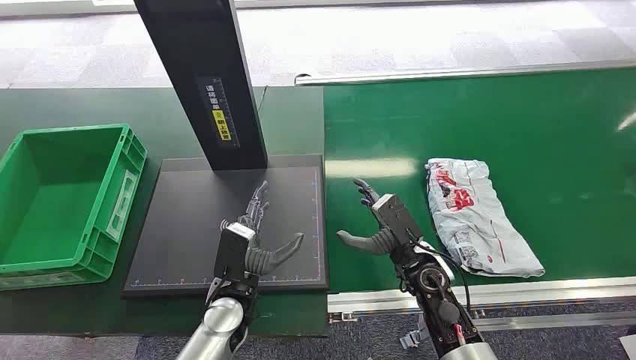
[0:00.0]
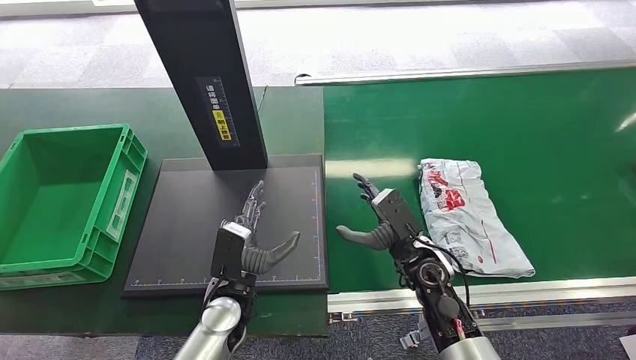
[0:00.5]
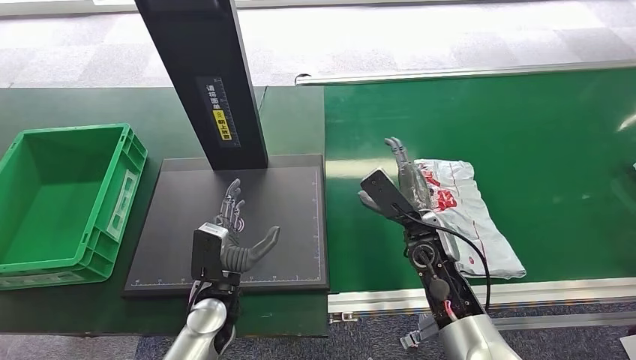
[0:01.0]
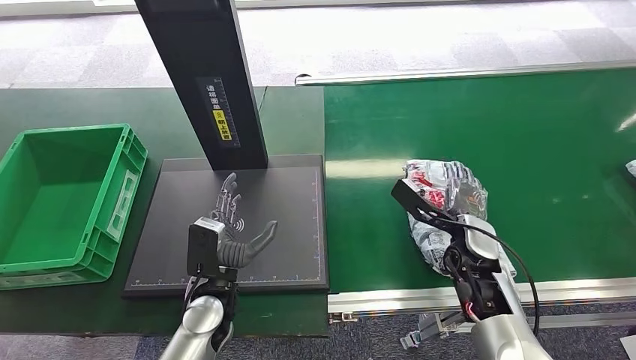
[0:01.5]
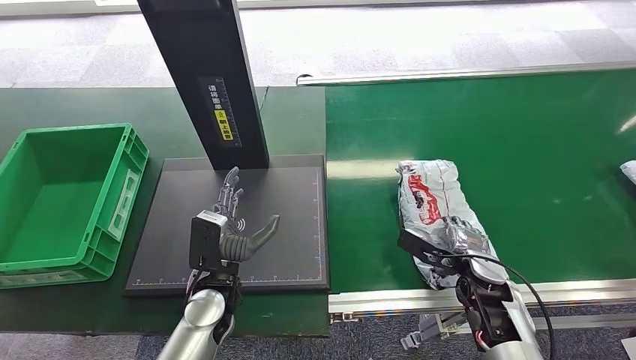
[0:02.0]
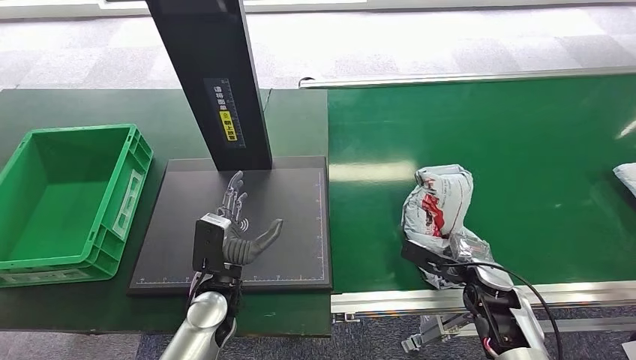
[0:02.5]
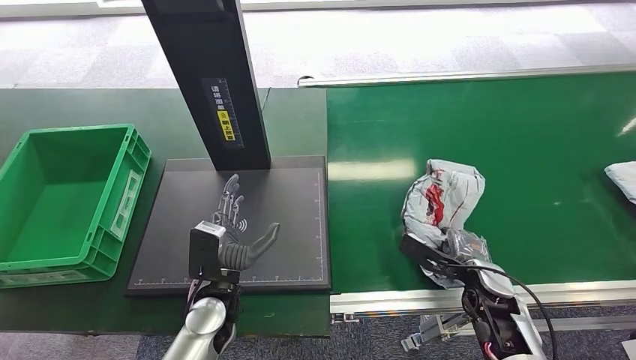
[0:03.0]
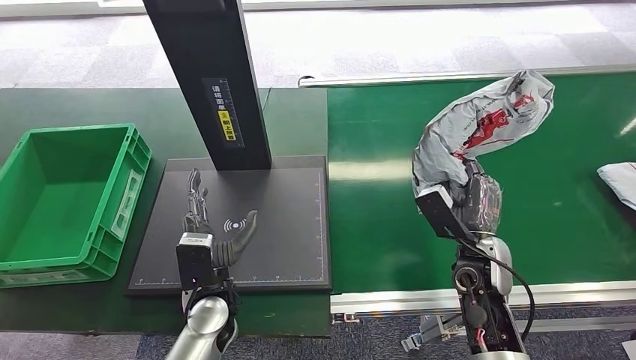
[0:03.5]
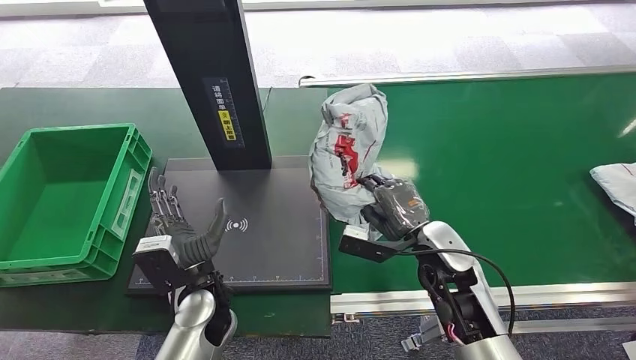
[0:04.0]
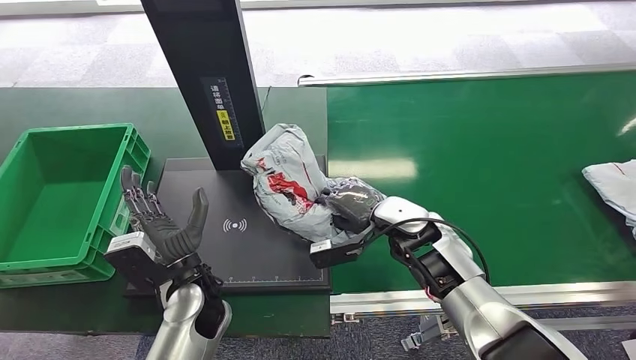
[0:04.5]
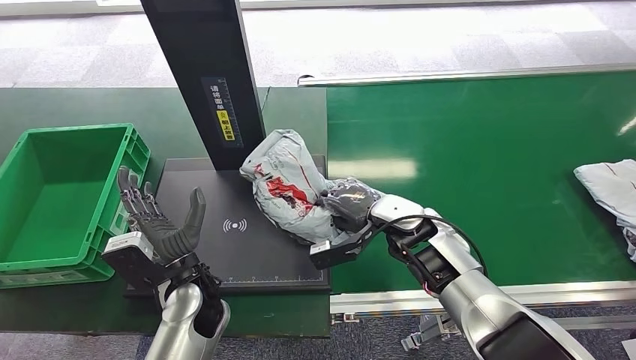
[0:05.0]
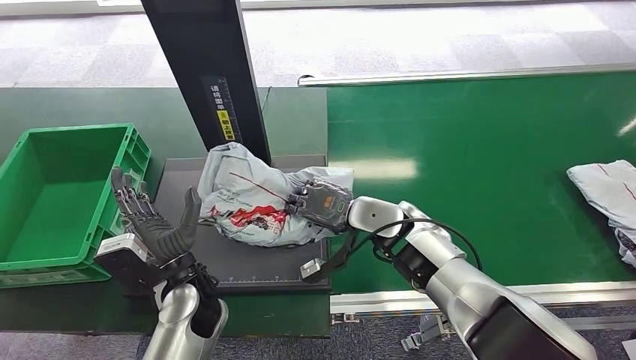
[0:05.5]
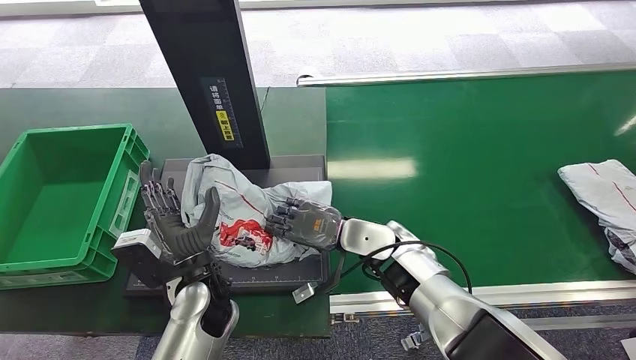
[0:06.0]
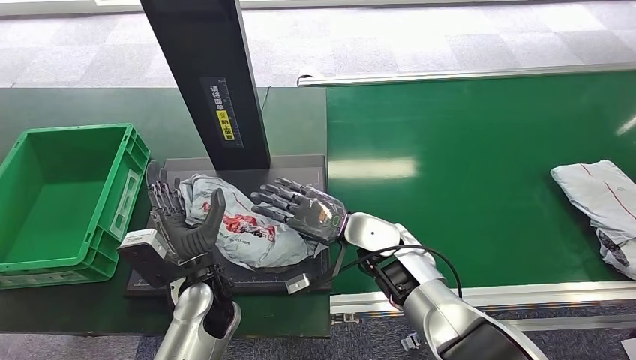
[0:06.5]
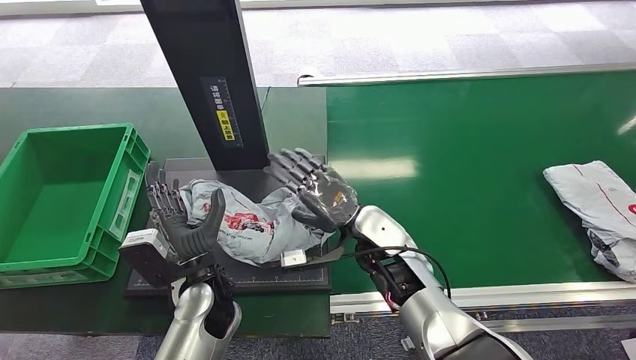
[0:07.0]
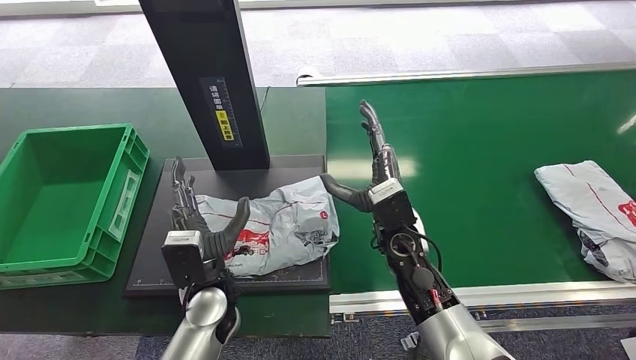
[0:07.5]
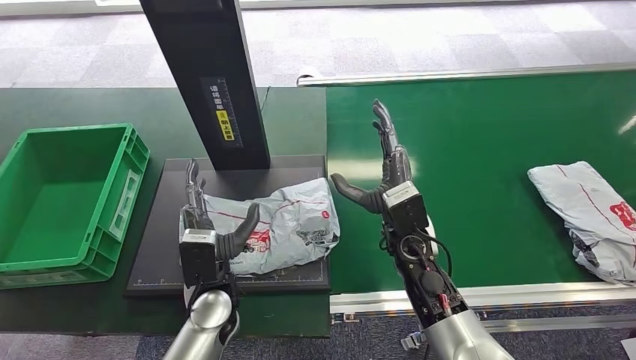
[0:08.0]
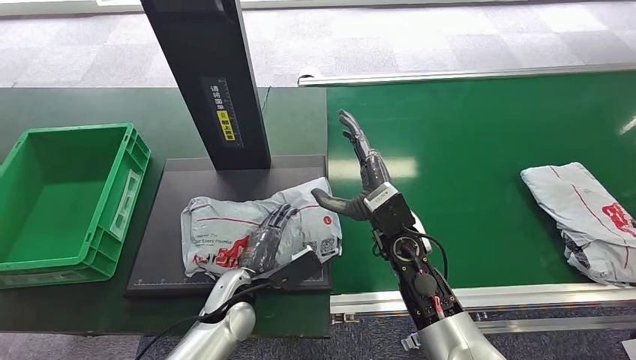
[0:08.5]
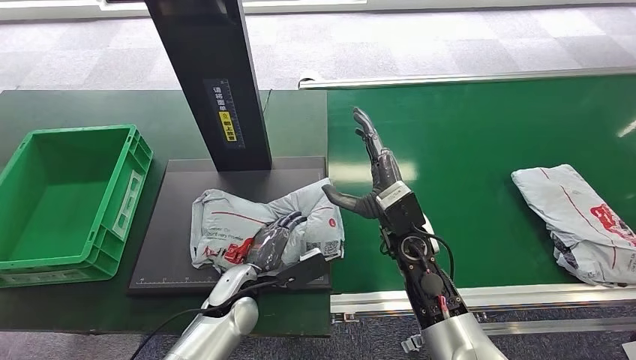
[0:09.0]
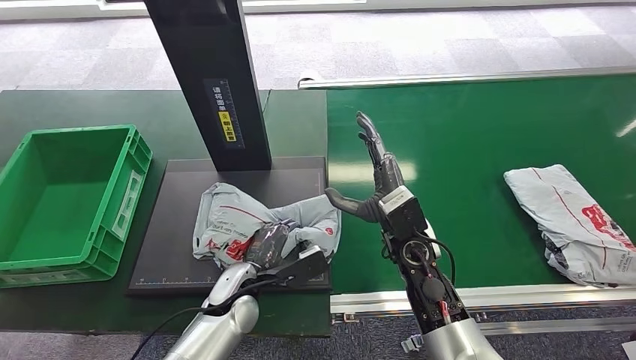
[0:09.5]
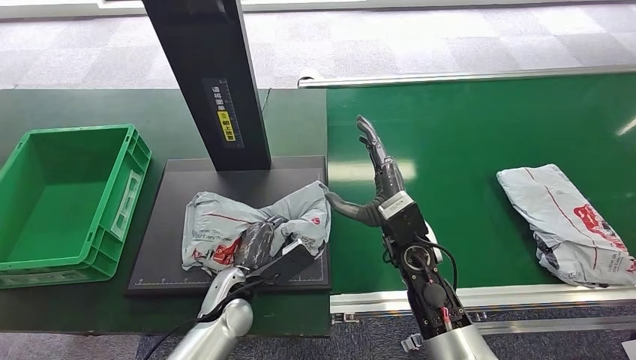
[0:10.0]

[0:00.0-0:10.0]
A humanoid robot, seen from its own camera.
Step, 0:00.0 to 0:03.5: Pick up the package from the conveyor belt.
Step, 0:04.0 to 0:07.5: Place the package onto the inbound machine.

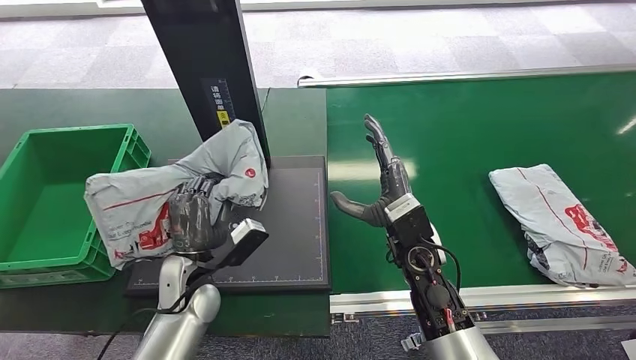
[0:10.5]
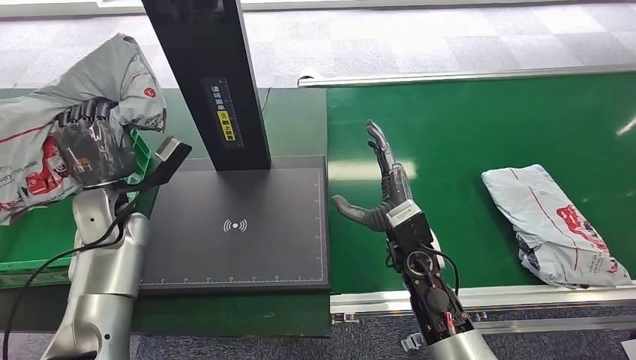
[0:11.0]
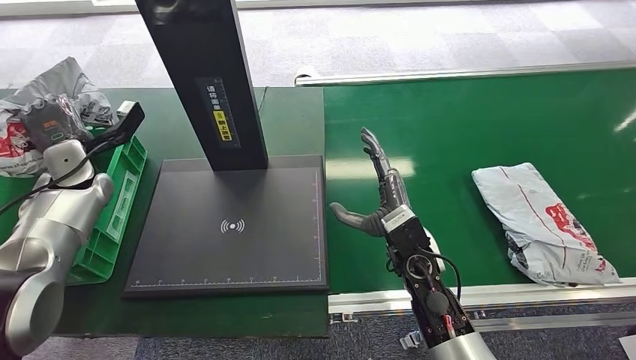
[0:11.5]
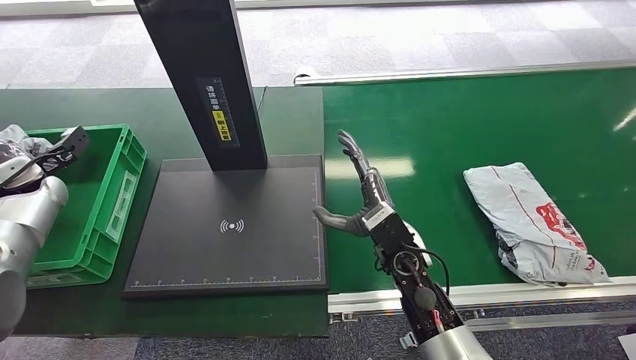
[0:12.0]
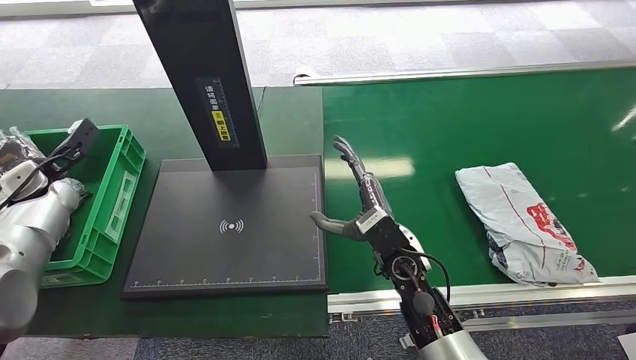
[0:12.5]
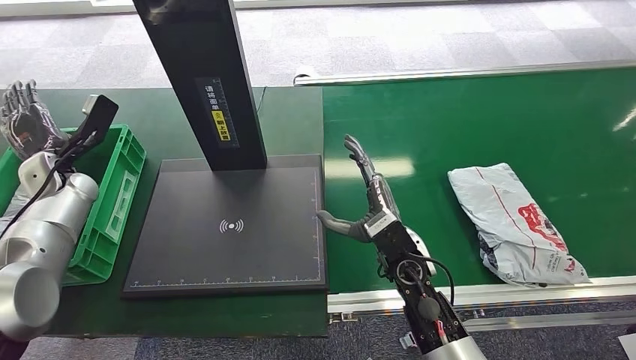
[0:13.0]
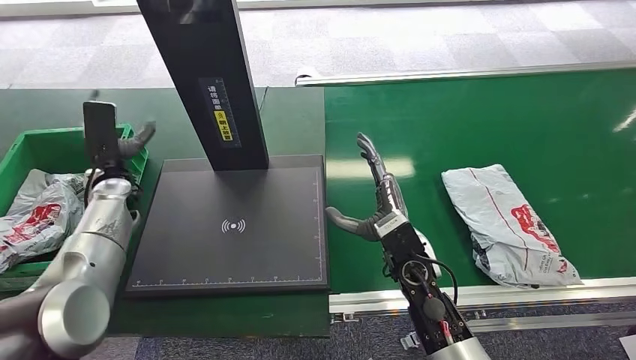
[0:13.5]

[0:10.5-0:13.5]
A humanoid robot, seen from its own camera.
Step, 0:12.0 to 0:13.5: Place the package into the parcel locker.

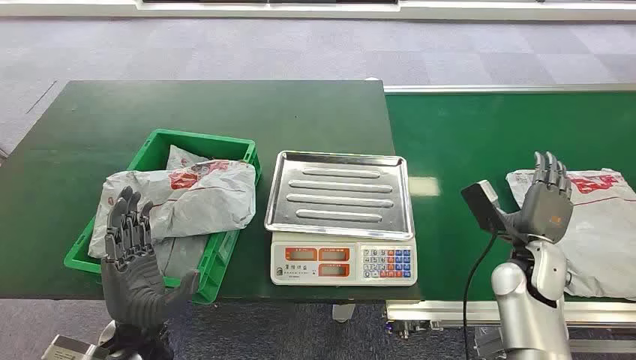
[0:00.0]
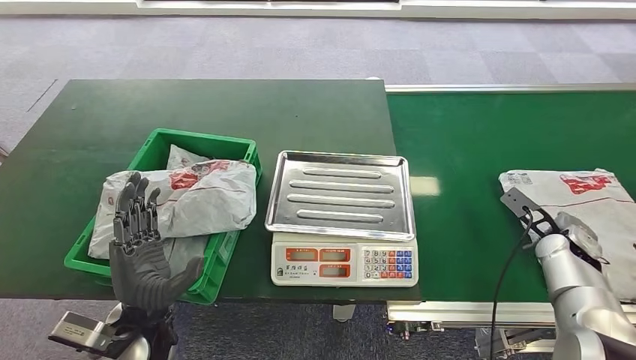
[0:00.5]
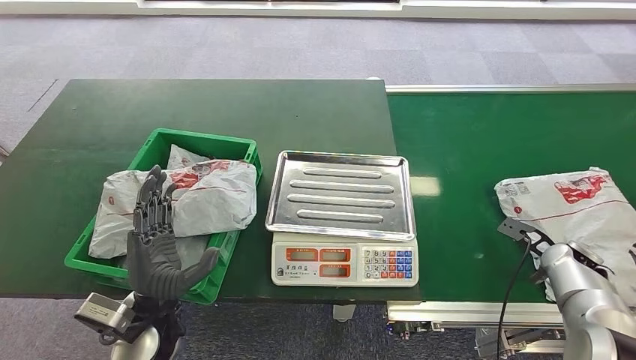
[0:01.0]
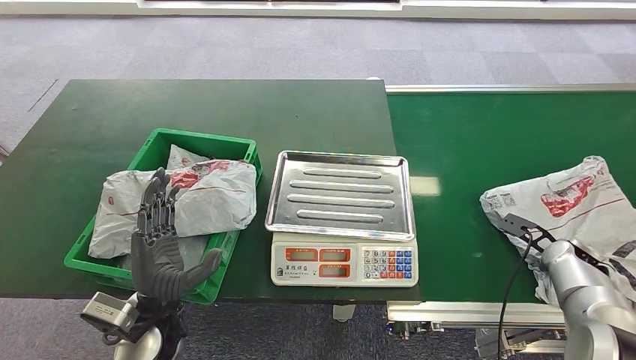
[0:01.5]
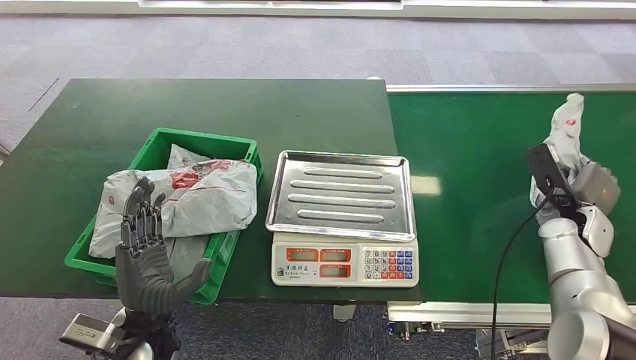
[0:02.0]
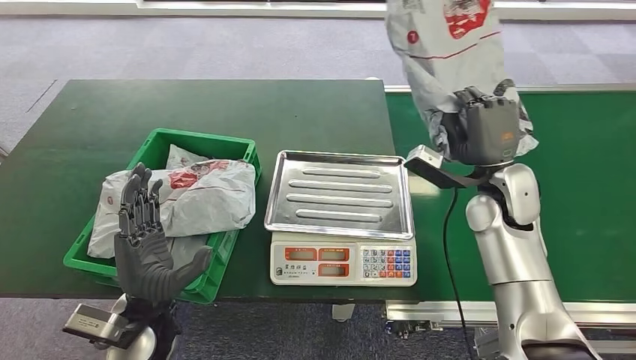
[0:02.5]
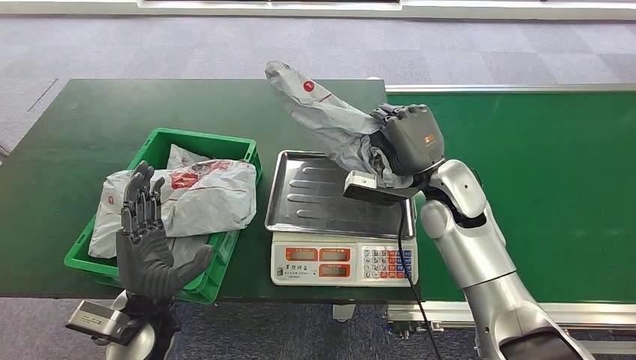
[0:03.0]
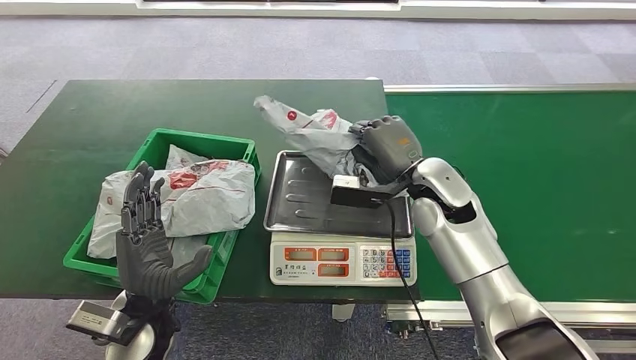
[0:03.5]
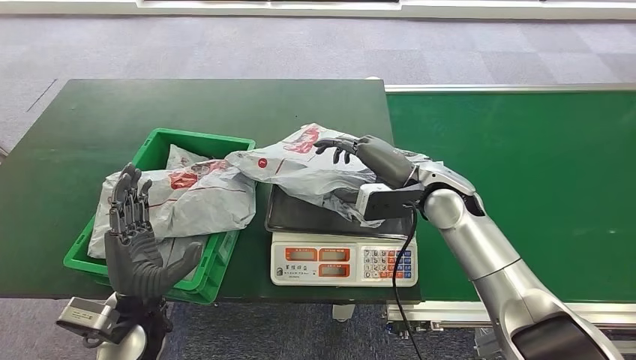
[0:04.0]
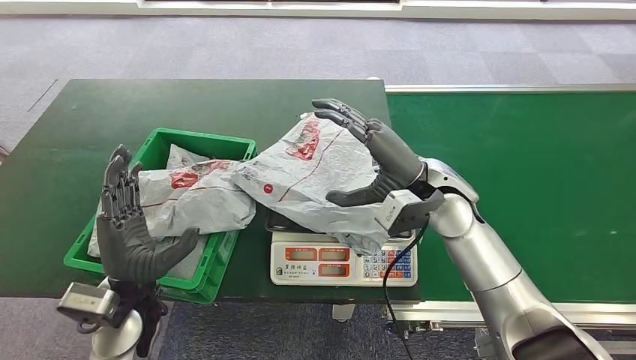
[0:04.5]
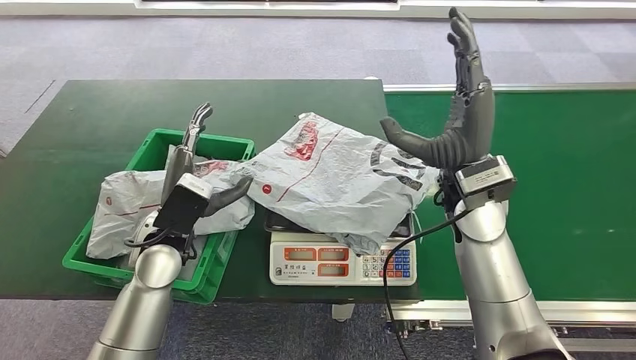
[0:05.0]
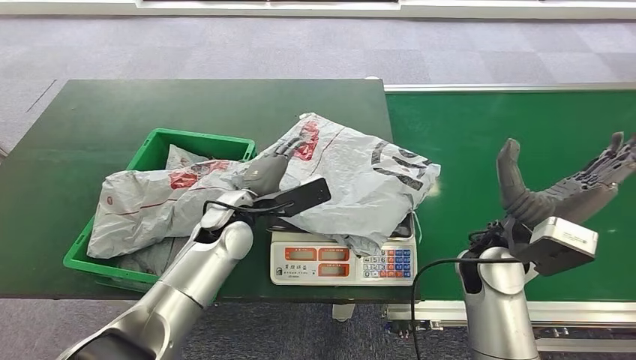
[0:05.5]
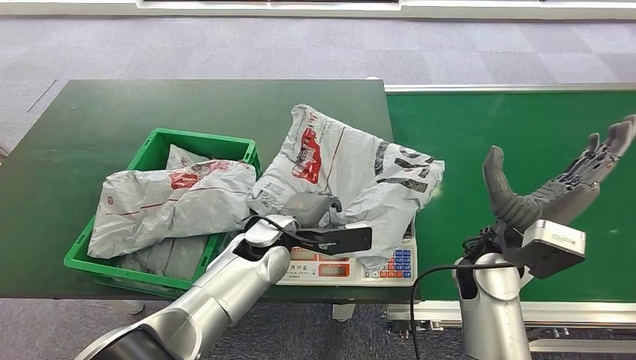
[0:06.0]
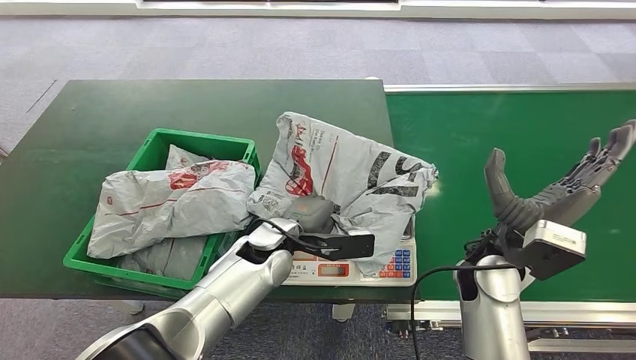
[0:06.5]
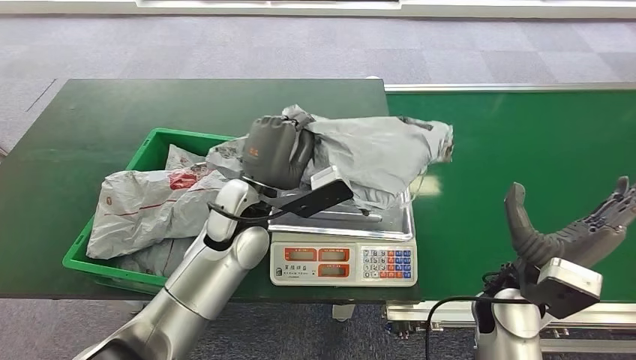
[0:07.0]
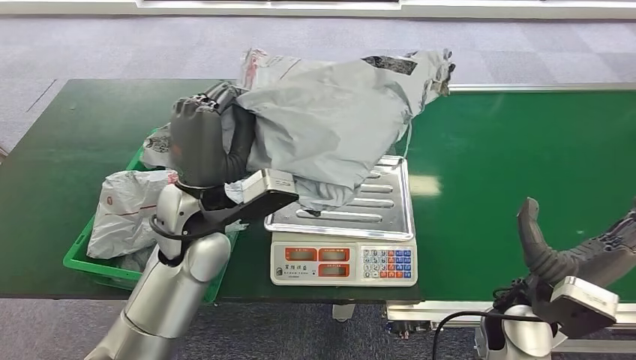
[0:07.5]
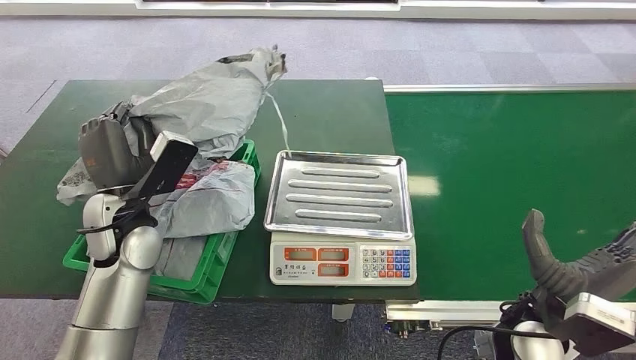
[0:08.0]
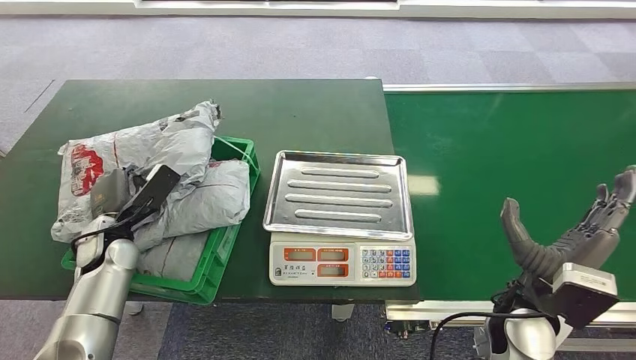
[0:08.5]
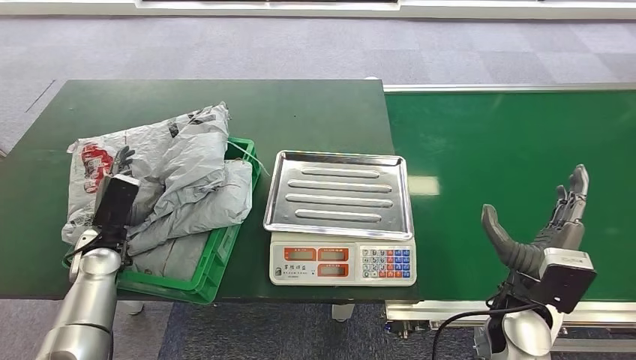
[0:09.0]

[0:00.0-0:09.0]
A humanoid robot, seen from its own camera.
Step, 0:00.0 to 0:02.5: Pick up the package from the conveyor belt.
Step, 0:03.0 to 0:04.5: Place the package onto the inbound machine.
Step, 0:05.5 to 0:07.0: Pick up the package from the inbound machine.
Step, 0:07.5 to 0:09.0: Place the package into the parcel locker.
